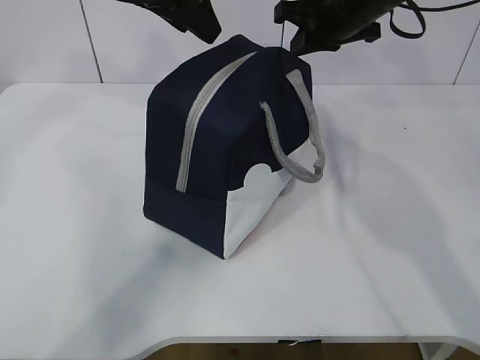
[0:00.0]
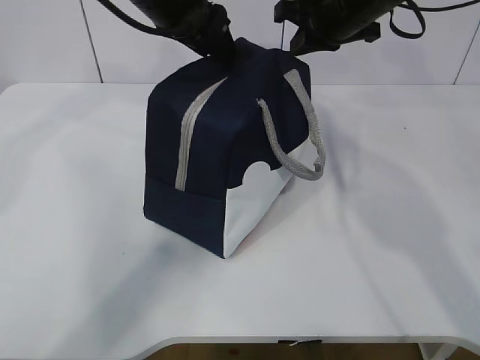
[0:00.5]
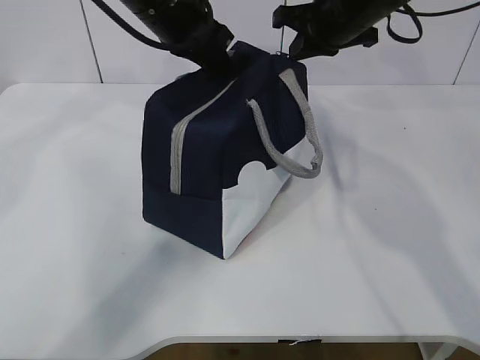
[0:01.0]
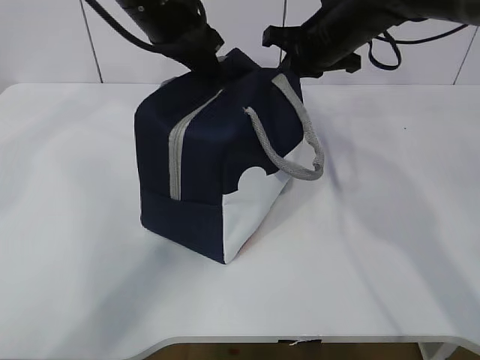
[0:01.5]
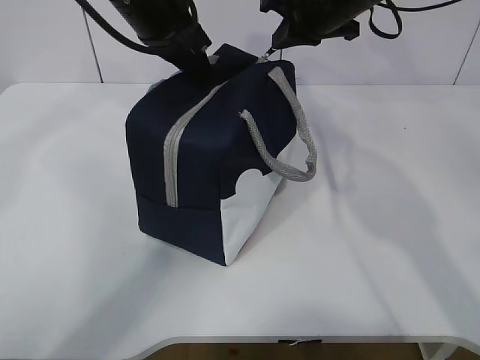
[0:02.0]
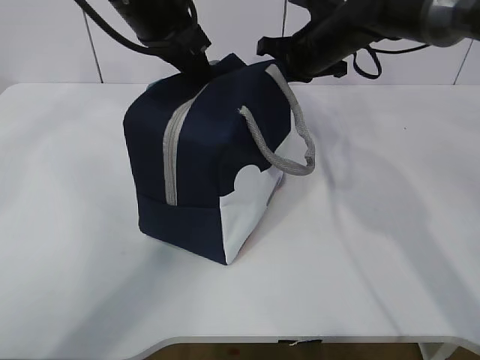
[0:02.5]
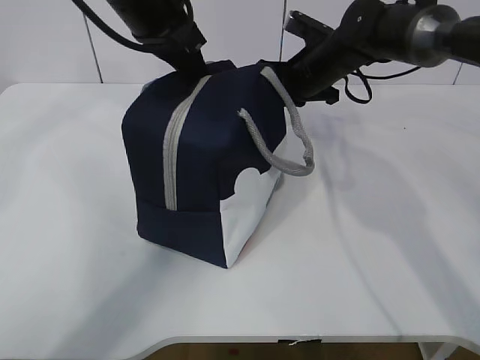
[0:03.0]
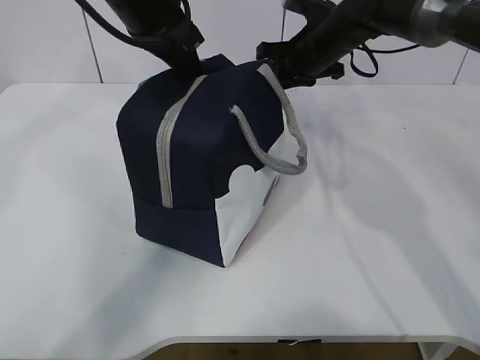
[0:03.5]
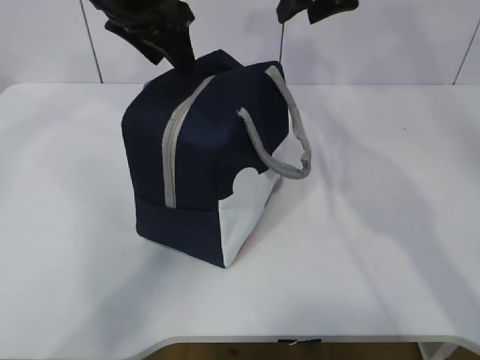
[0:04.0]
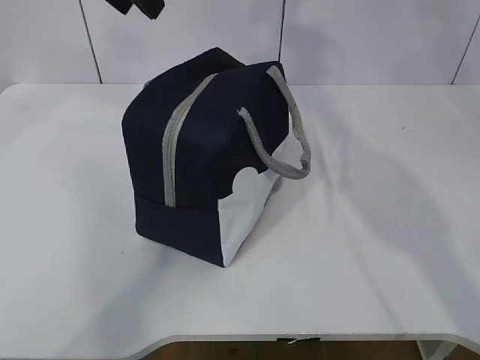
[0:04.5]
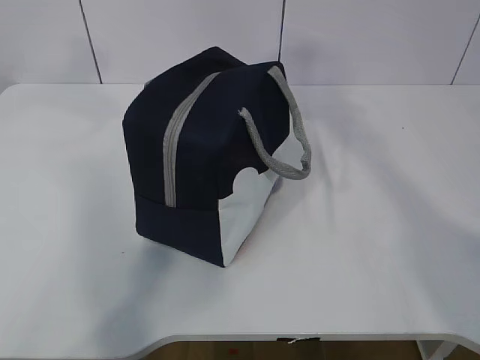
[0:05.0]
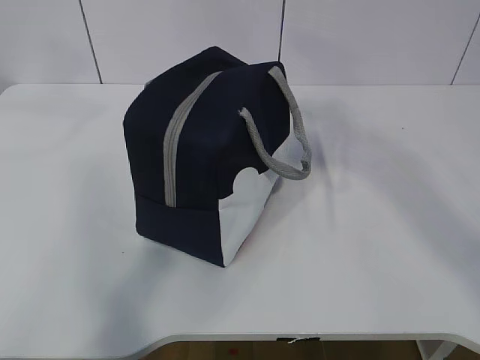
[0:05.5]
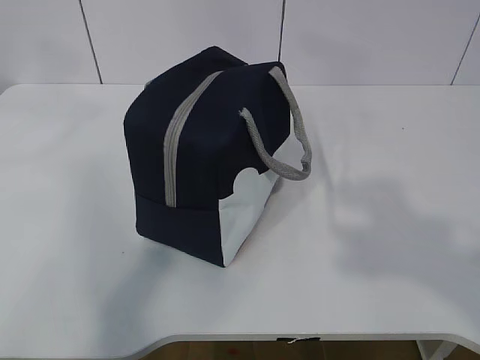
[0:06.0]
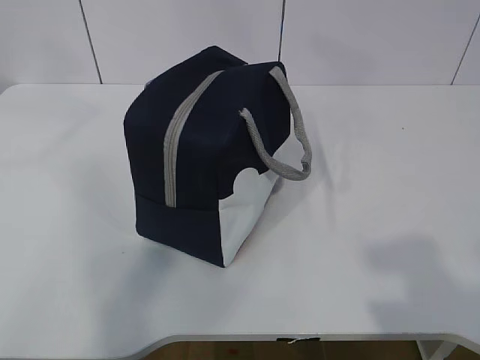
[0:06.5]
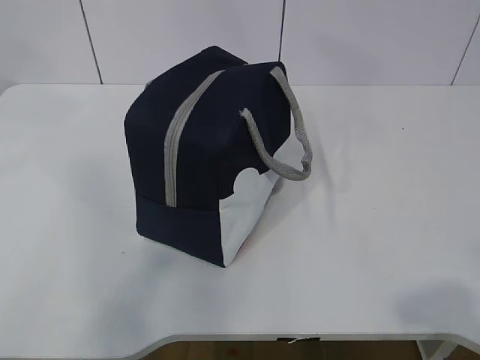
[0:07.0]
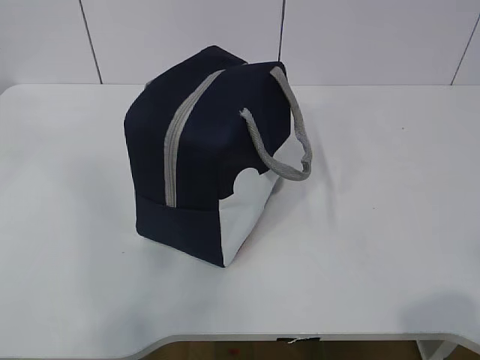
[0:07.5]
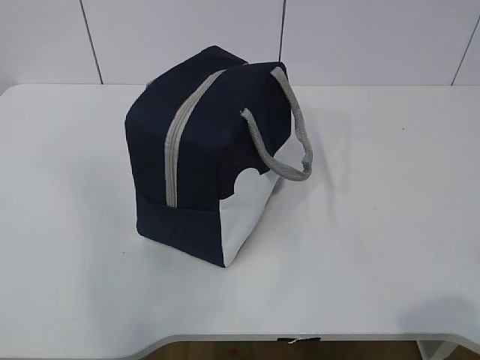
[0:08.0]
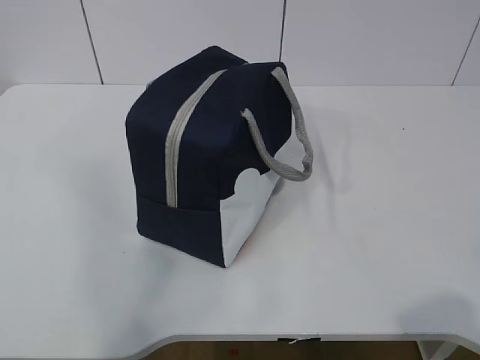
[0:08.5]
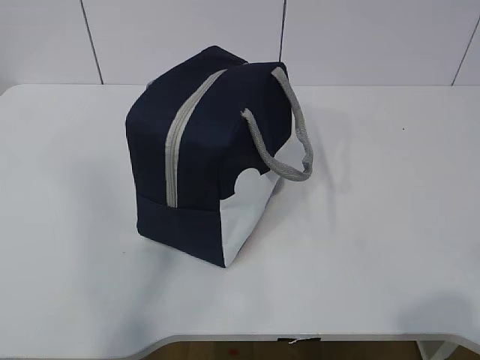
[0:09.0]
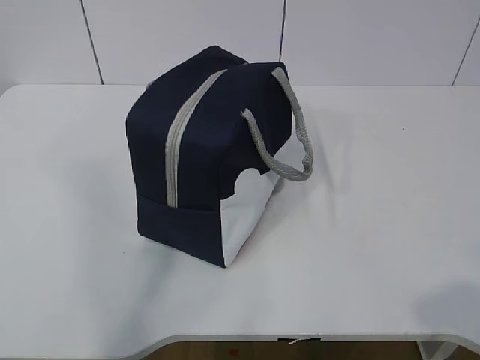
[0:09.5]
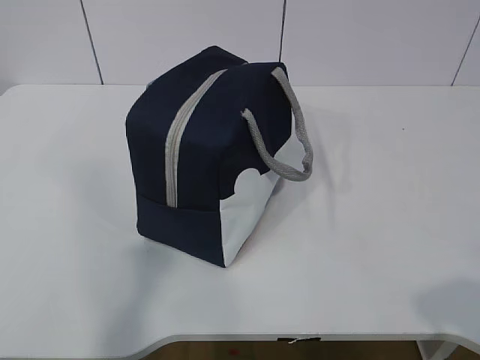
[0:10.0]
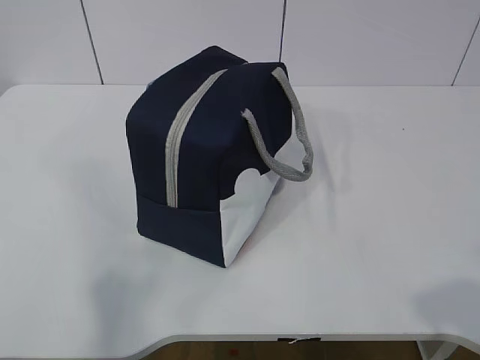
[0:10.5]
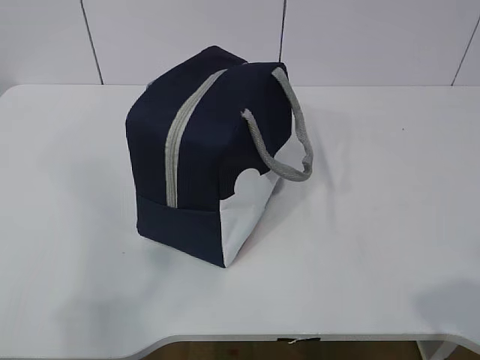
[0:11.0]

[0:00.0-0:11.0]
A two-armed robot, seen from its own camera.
0:00.0 to 0:02.0: The left gripper closes its fingers.
0:02.0 to 0:03.5: The right gripper heads downward, covering some 5 cm, and opens.
0:03.5 to 0:05.5: The left gripper goes roughly 25 cm upward, backward and to the left, and opens. The right gripper heads backward and upward, covering about 50 cm, and opens.
0:05.5 to 0:07.5: The left gripper goes roughly 10 cm backward, while the right gripper shifts roughly 25 cm downward and backward.
0:07.5 to 0:09.0: The left gripper goes some 15 cm downward, backward and to the left.

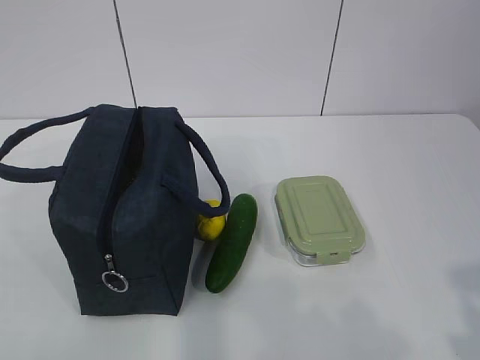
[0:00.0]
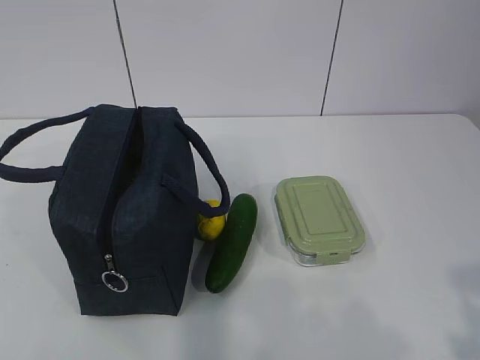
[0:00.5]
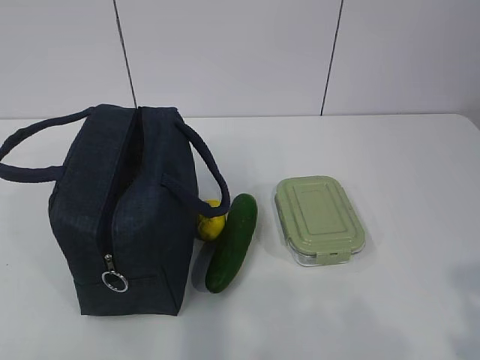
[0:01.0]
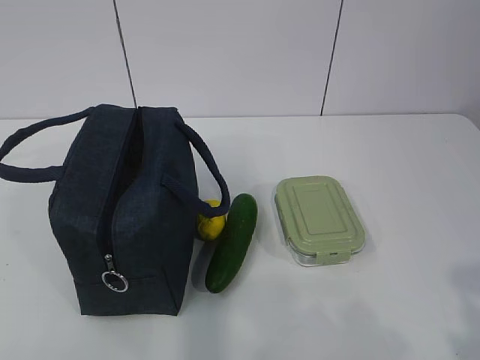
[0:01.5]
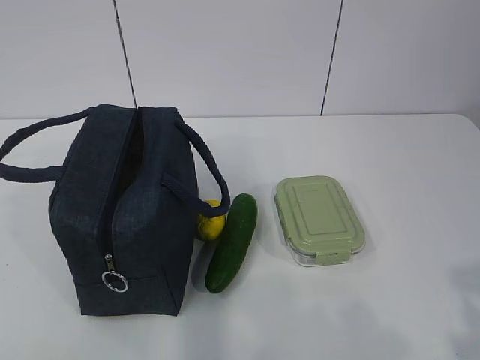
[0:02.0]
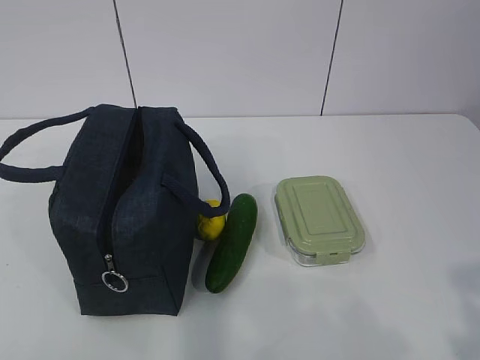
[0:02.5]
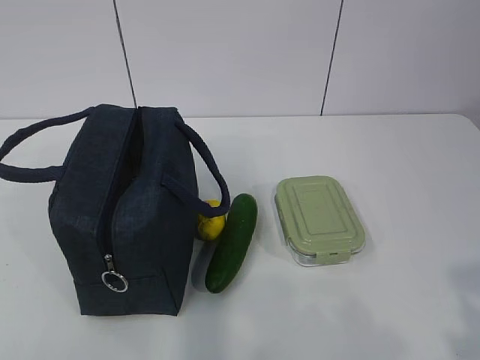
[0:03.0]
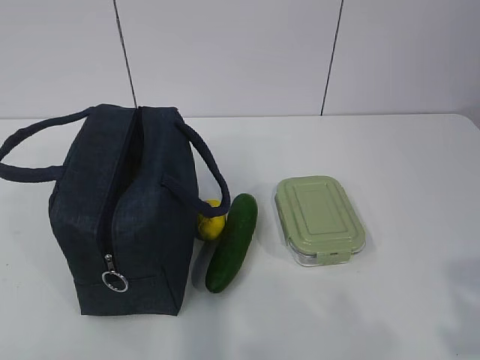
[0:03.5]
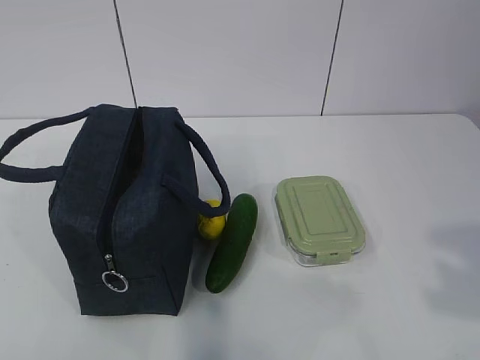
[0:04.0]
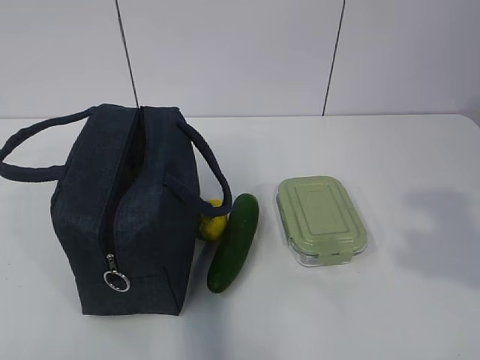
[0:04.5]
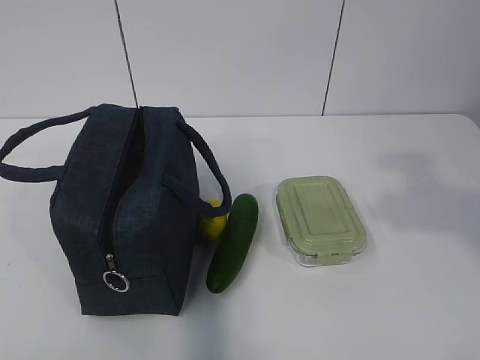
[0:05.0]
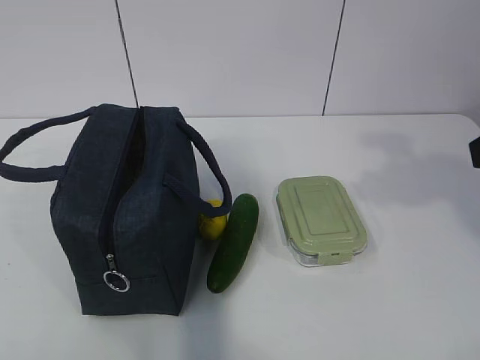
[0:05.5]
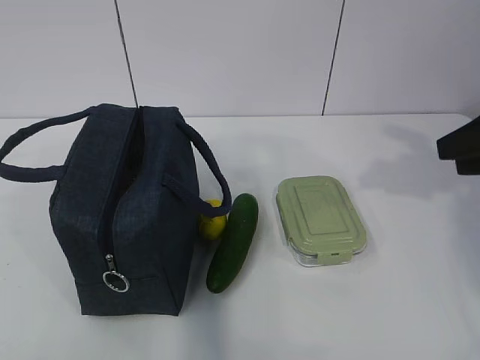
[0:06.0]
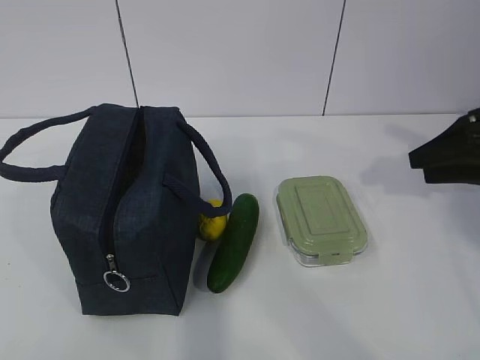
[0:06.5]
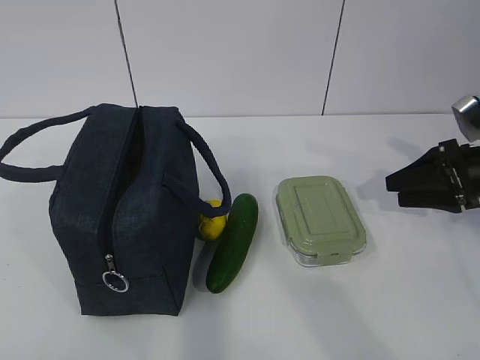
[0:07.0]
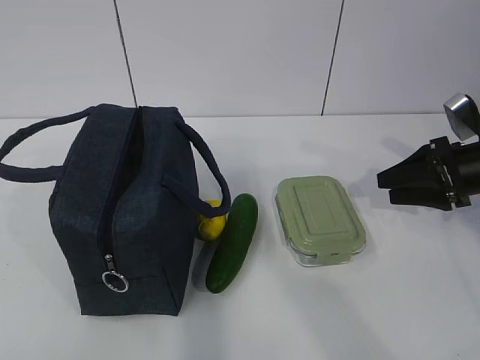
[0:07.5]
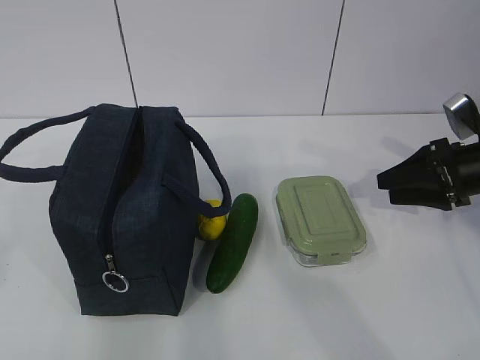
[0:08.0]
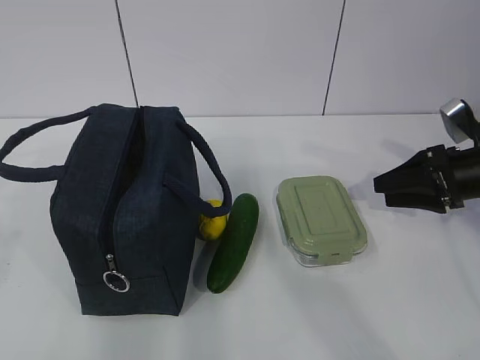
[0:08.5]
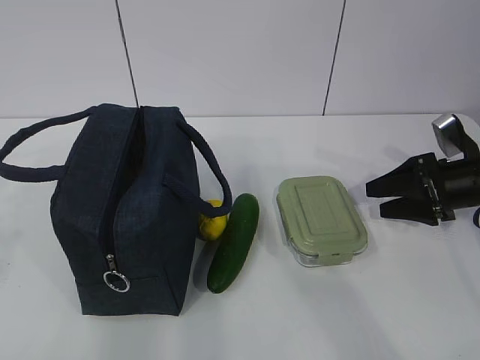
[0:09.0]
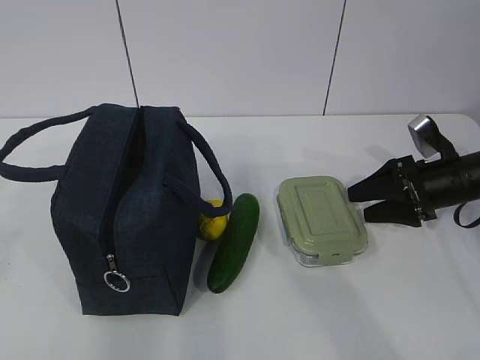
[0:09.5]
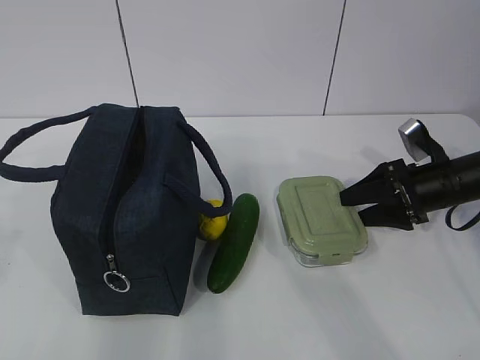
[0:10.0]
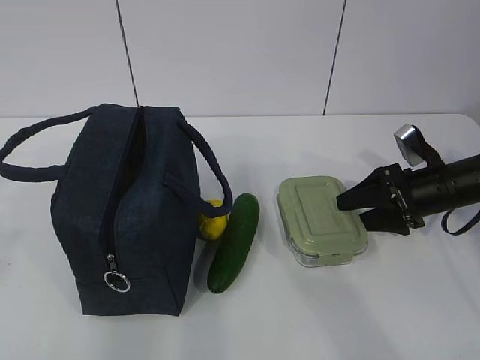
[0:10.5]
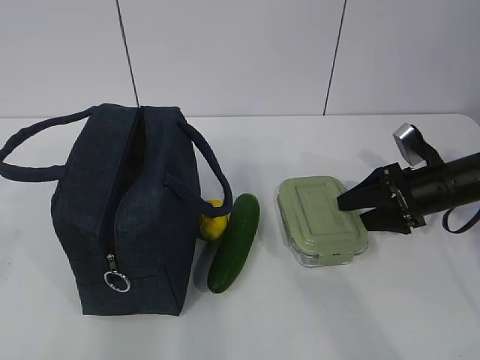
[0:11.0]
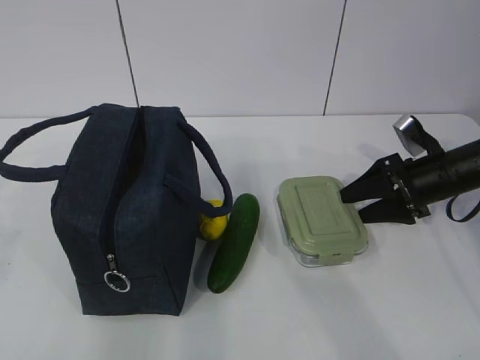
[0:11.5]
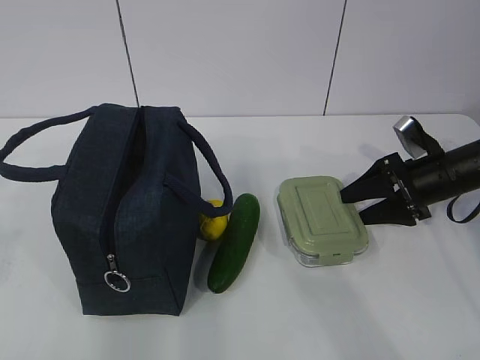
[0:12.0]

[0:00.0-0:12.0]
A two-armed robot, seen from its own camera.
0:04.0 to 0:06.0: The right gripper travels forward by approximately 25 cm.
0:06.0 to 0:08.0: The right gripper is displaced downward and forward by roughly 15 cm, while the left gripper travels forward and upward by some 10 cm.
0:08.0 to 0:10.0: The right gripper changes place by some 5 cm.
0:10.0 to 0:12.0: The grippers make only small movements.

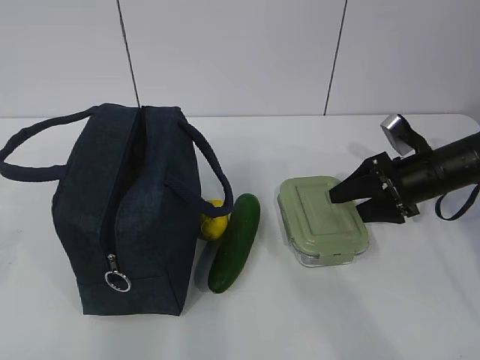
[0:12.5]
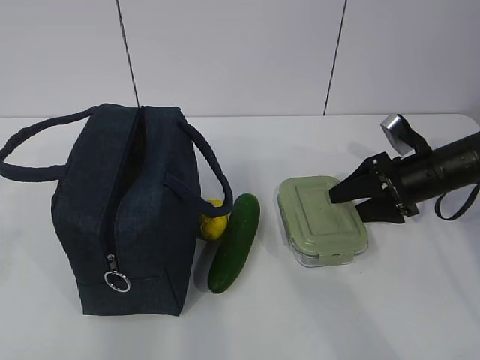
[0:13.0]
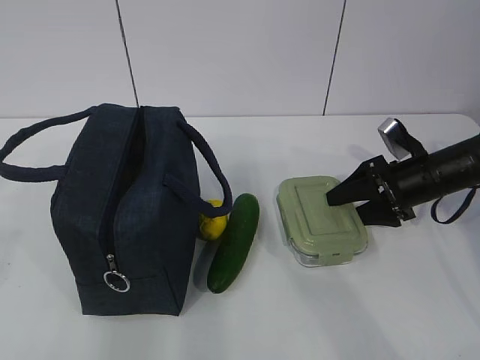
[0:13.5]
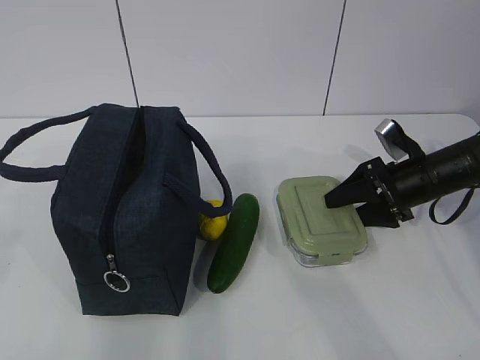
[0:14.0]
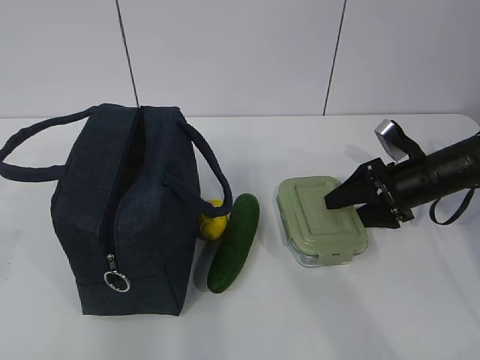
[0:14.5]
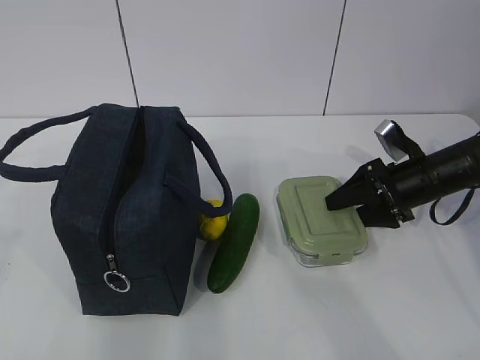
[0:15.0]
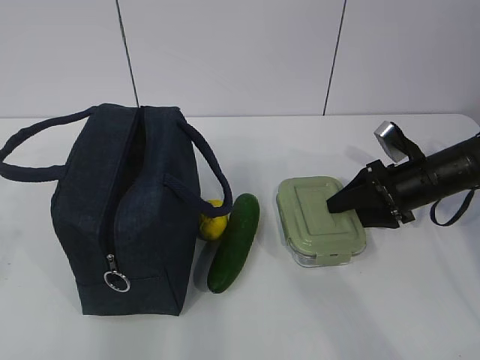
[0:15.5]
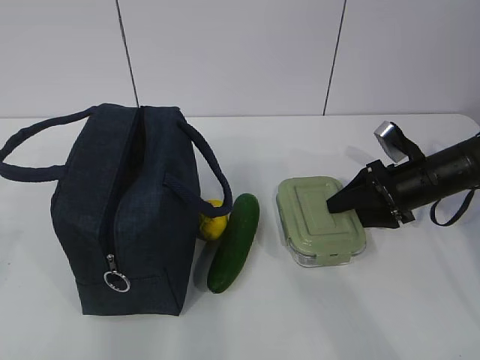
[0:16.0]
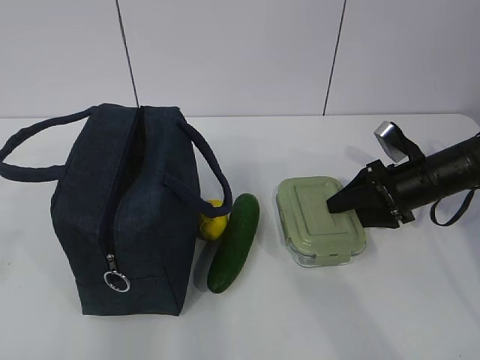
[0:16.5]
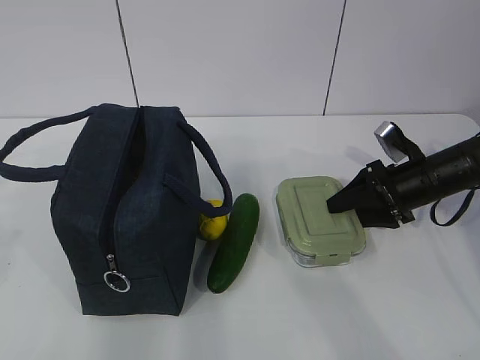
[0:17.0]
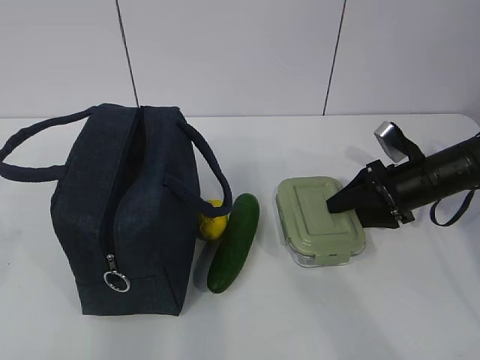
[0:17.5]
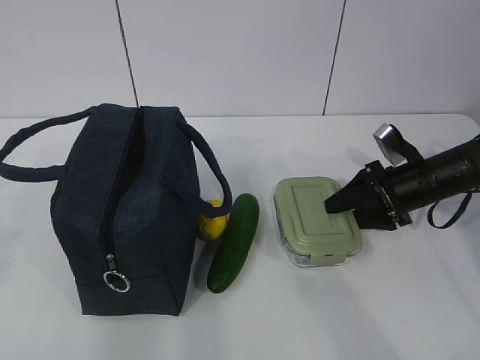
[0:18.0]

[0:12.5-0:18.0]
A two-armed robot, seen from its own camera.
0:12.5 to 0:16.0: Neither gripper changes place.
0:16.0 to 0:18.0: Both grippers stay put.
